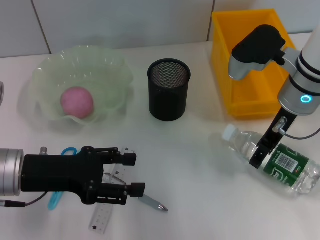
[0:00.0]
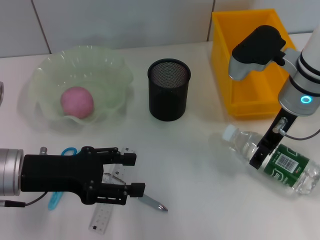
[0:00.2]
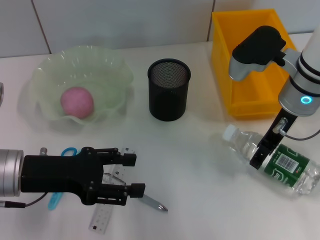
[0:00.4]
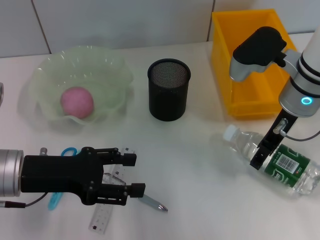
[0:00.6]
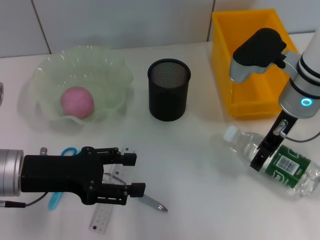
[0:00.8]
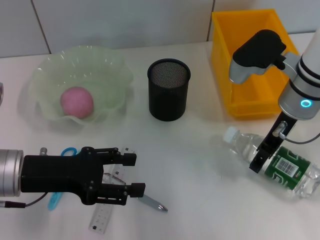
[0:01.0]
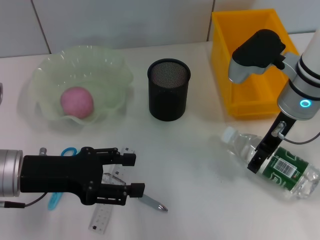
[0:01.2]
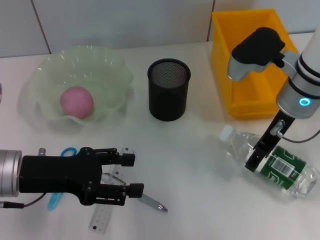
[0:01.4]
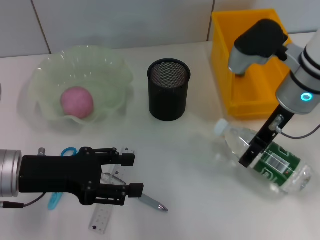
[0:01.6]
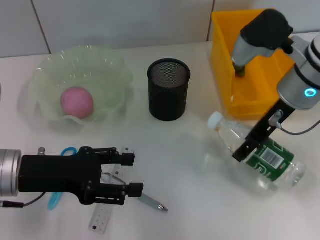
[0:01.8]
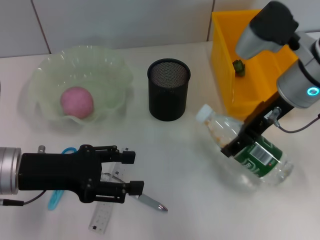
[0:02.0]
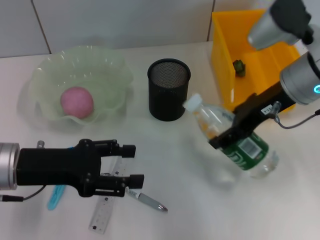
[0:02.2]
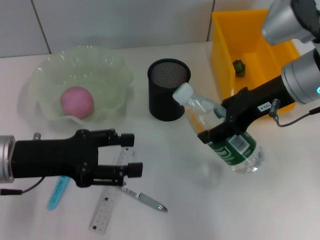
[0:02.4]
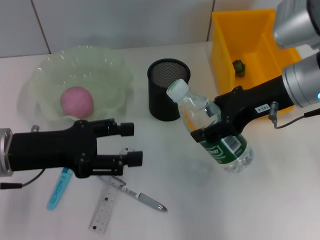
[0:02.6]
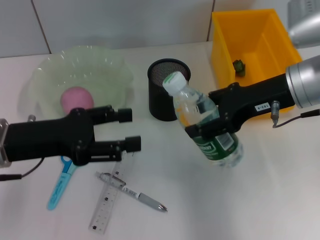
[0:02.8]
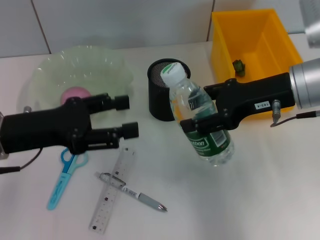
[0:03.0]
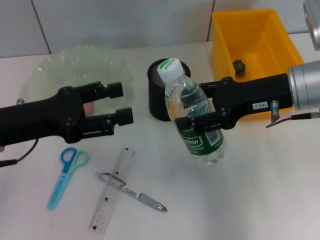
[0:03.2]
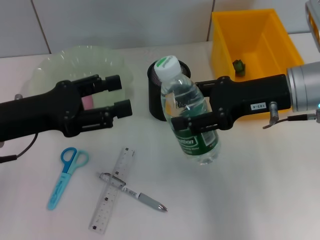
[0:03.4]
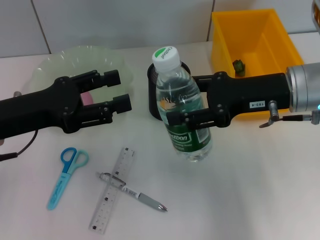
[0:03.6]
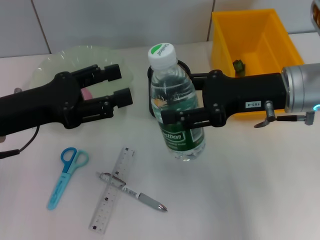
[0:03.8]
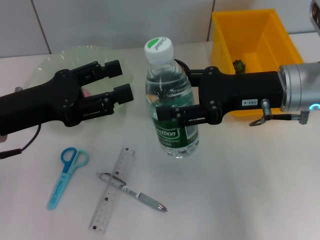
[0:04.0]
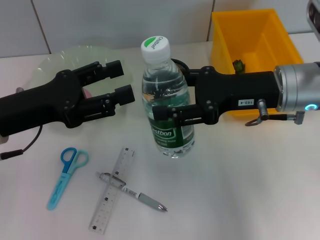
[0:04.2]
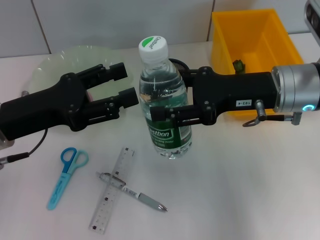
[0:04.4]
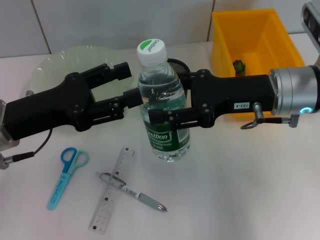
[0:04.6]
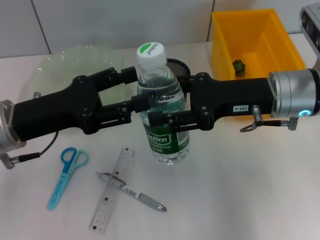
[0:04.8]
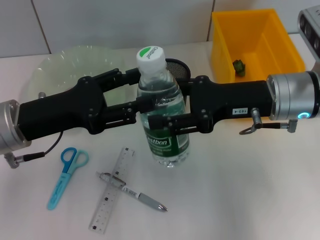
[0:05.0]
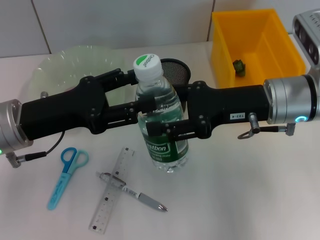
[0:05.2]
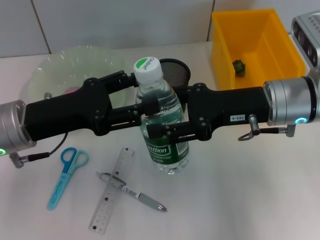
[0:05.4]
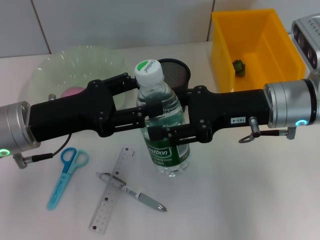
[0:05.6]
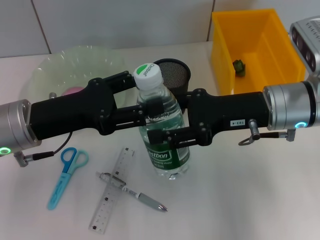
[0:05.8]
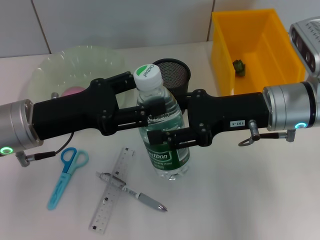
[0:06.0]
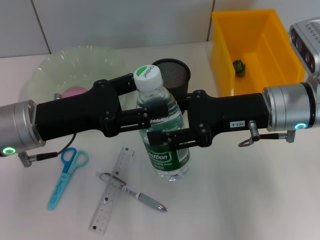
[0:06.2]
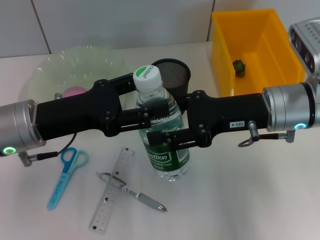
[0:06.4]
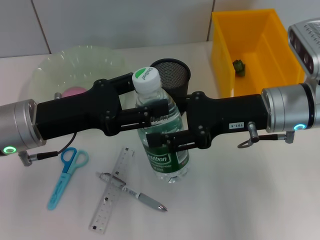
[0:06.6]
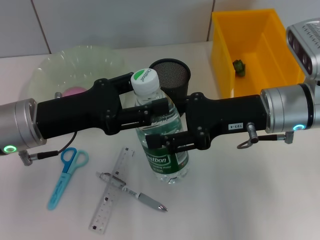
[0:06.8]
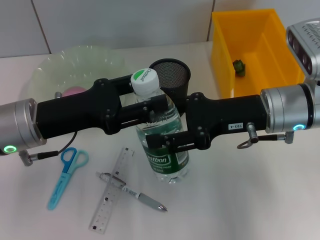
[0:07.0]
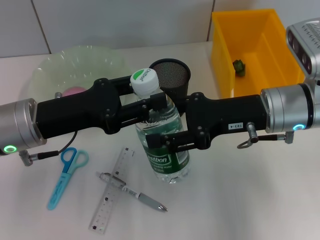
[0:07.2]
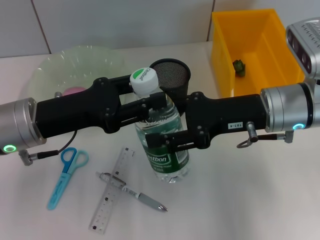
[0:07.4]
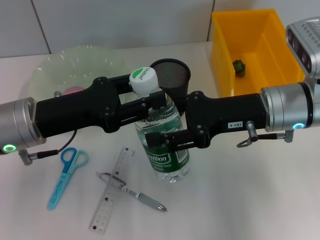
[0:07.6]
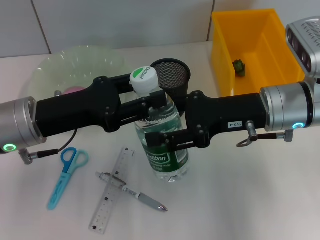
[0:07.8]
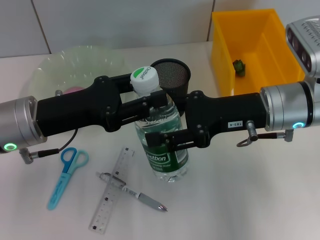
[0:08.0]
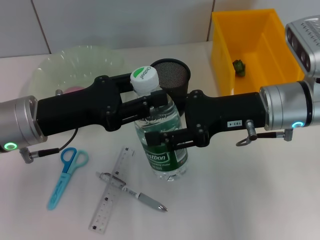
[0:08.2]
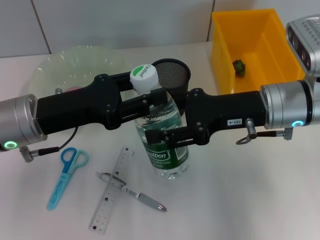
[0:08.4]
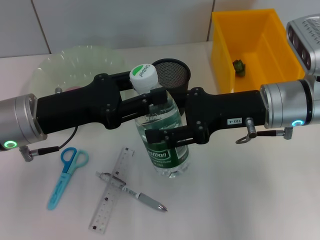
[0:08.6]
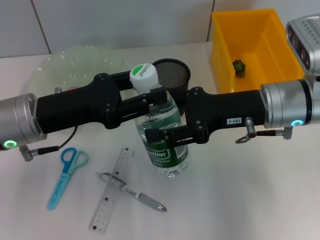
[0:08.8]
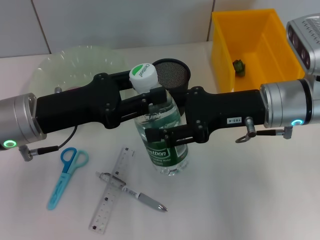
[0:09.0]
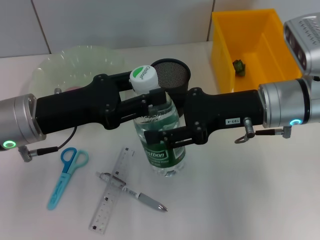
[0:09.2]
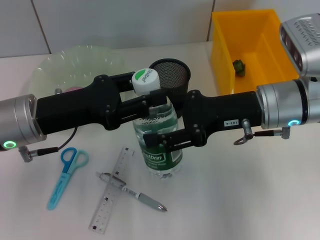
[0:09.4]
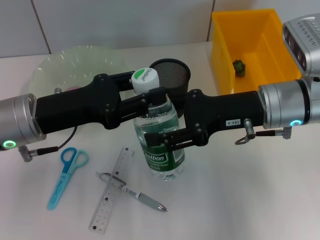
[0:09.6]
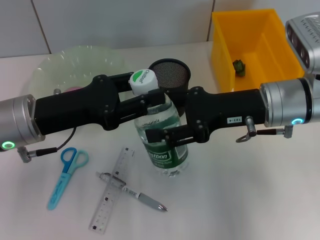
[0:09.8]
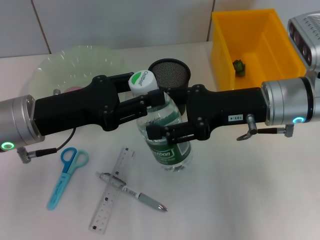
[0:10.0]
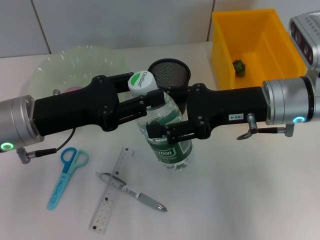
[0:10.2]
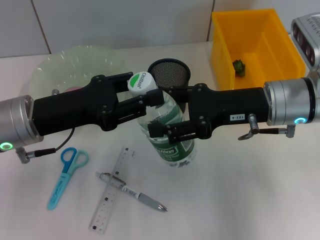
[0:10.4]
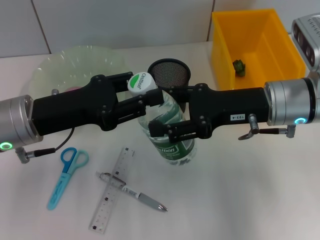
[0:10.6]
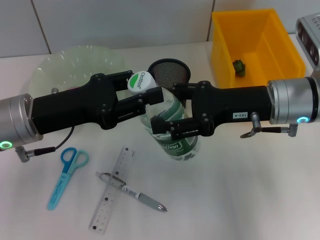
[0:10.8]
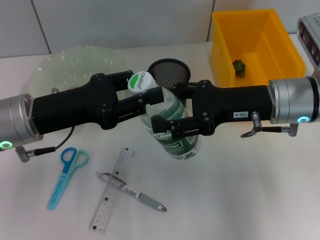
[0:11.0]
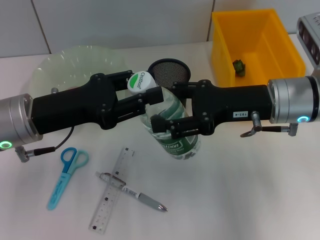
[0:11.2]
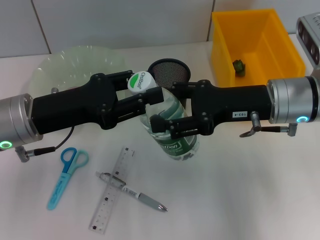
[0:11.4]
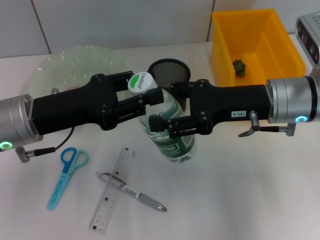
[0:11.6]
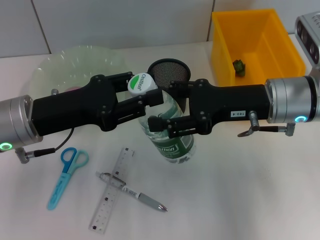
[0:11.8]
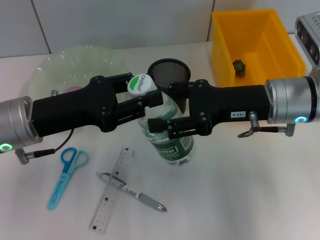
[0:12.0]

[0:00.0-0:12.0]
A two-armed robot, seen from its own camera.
0:00.0 to 0:01.6: The grippers make only small movements.
0:06.0 to 0:07.6: The left gripper closes its fingers.
0:07.6 to 0:12.0: Neither gripper changes place.

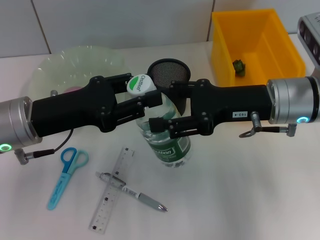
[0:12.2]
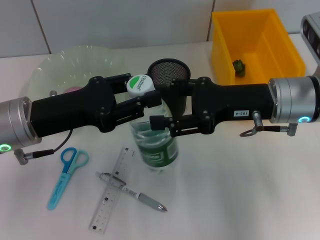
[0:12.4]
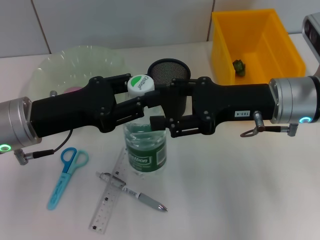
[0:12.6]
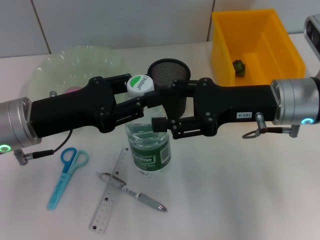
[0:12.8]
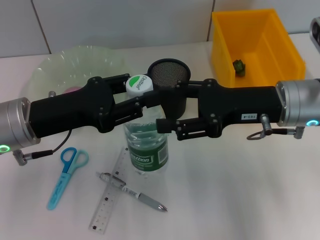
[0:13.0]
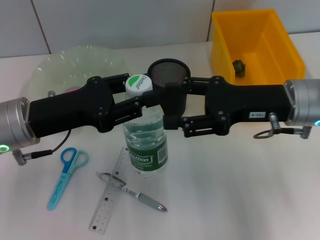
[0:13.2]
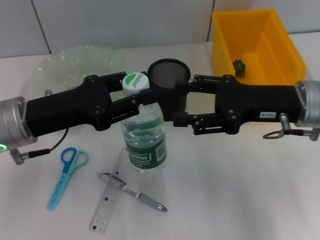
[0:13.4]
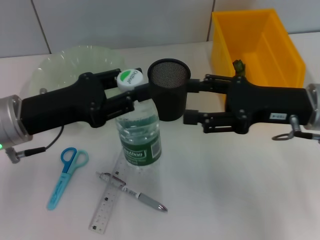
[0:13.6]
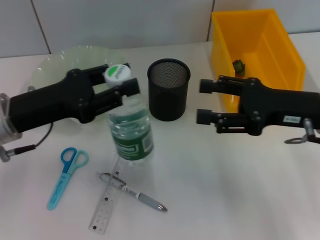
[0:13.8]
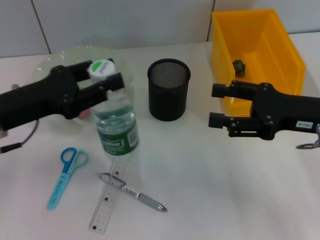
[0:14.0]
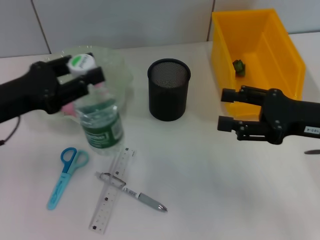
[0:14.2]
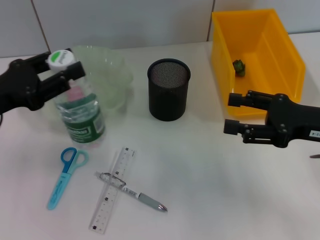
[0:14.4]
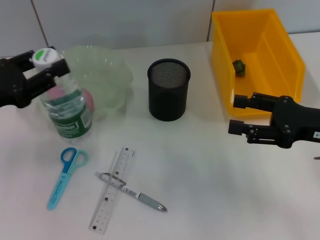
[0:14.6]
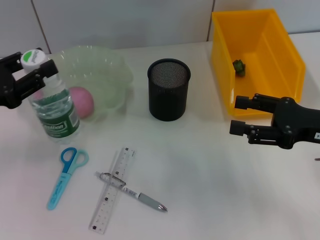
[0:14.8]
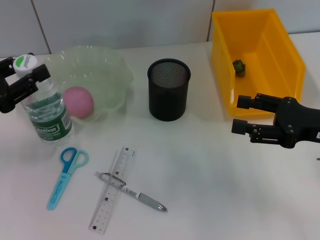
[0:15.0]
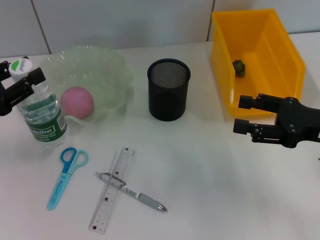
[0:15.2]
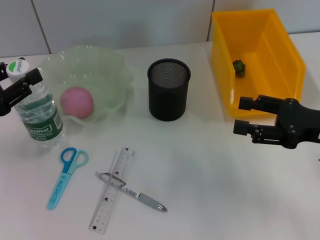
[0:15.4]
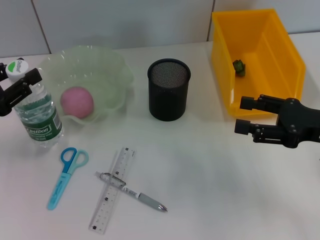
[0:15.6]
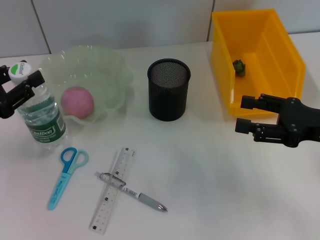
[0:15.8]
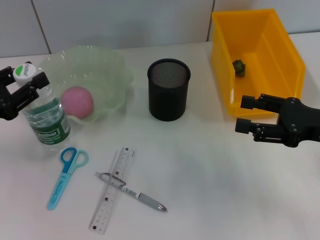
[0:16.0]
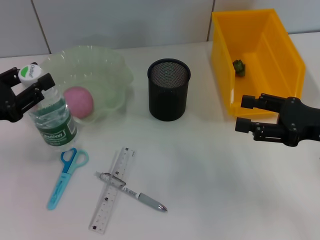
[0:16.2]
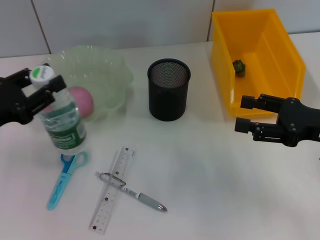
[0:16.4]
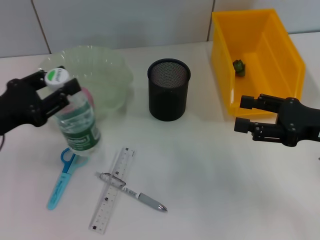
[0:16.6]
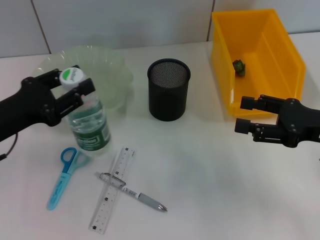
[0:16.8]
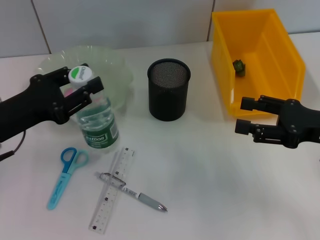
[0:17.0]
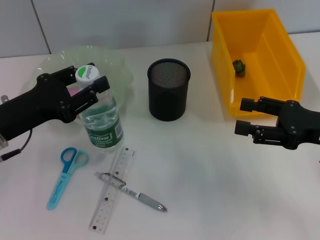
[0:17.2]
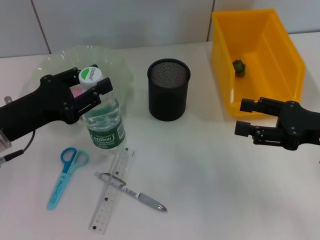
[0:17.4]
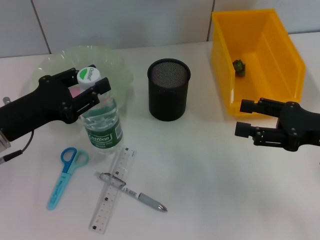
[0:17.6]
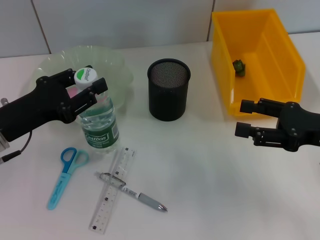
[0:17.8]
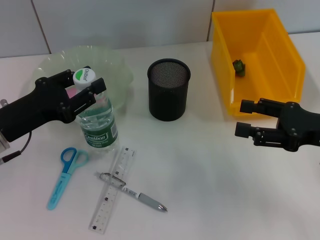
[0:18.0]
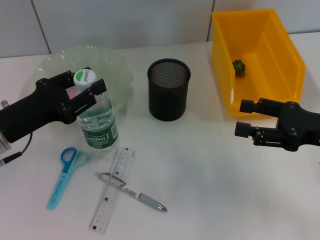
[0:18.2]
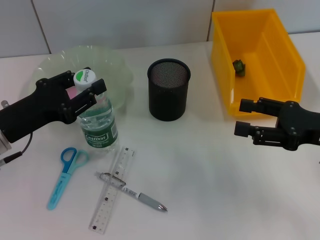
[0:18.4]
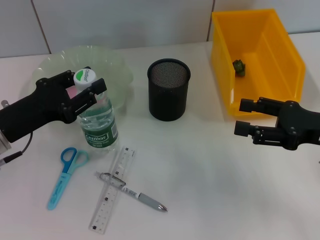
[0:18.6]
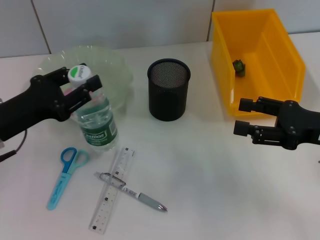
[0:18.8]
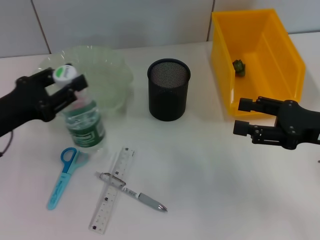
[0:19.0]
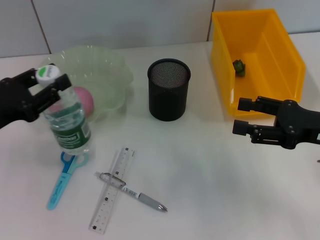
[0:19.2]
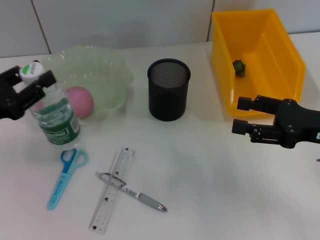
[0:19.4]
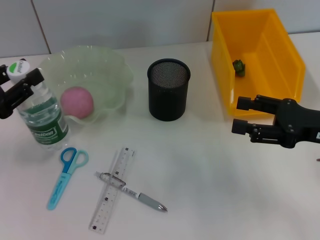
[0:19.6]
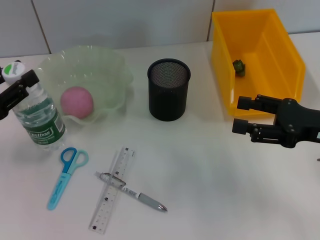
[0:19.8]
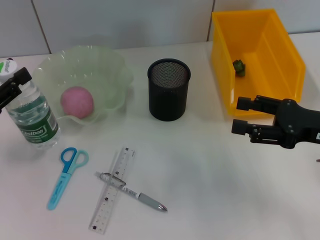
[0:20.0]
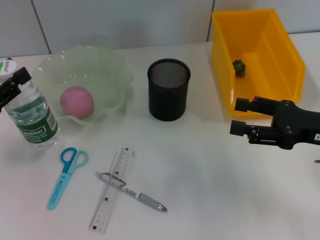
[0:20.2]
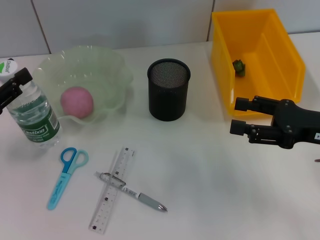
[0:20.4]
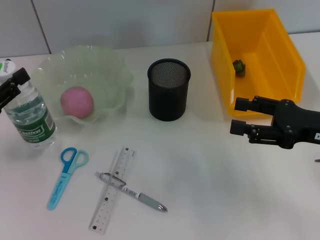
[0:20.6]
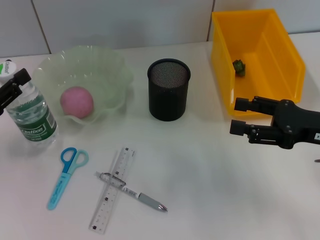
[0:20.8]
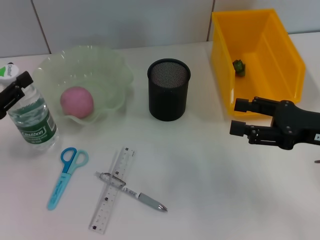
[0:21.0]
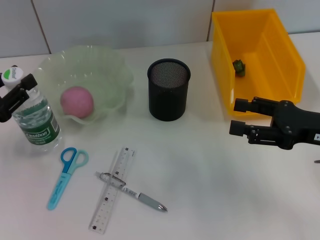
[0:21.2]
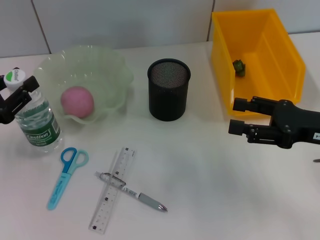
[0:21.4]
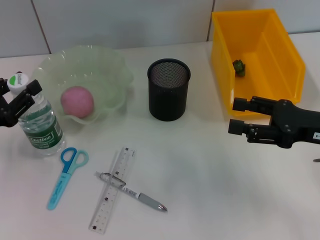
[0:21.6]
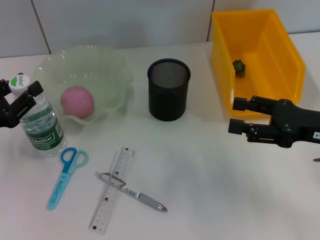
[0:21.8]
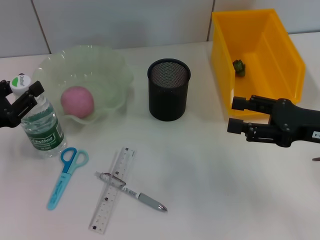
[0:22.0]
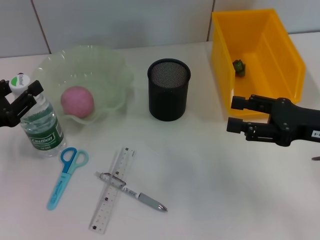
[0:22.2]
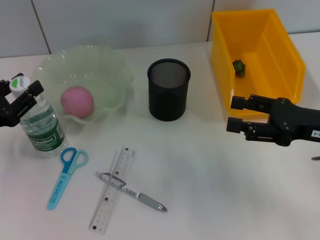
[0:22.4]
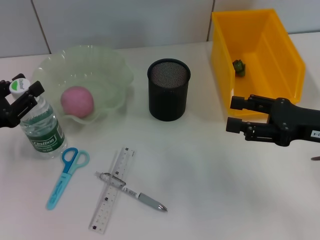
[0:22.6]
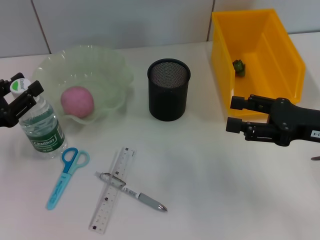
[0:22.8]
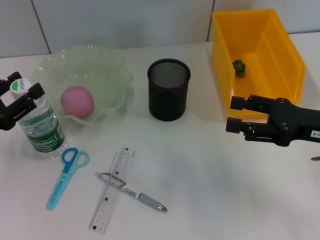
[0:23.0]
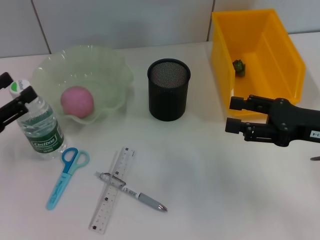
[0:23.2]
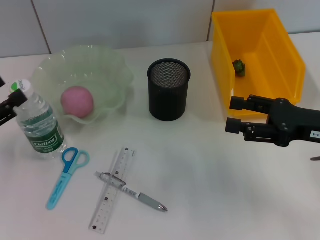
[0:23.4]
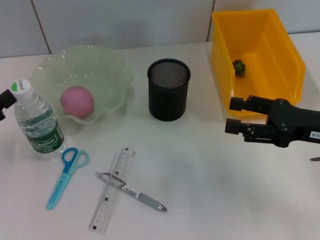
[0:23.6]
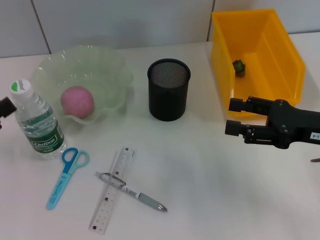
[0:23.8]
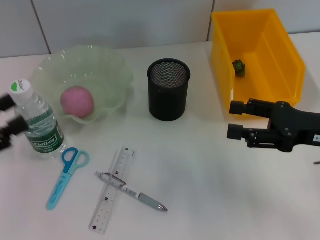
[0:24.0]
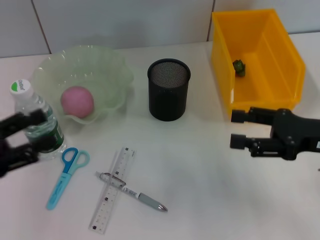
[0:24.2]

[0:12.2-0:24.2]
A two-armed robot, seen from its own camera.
Step, 0:13.2 to 0:22.8: Place the water bottle on the table with the left hand.
0:12.2 to 0:13.8: The right gripper heads to the right, covering some 5 cm.
0:13.8 to 0:15.2: The right gripper shifts by about 5 cm. Meanwhile the left gripper moves to the left, approximately 10 cm.
0:15.2 to 0:16.6: The grippers move only a little.
0:16.6 to 0:18.2: There are only small adjustments of the grippers.
0:18.2 to 0:19.8: The left gripper shifts some 5 cm to the left.
0:19.8 to 0:22.6: There are only small adjustments of the grippers.
0:22.6 to 0:24.2: The left gripper changes place by some 5 cm, and opens.
